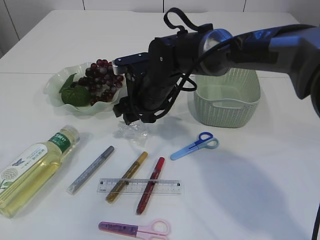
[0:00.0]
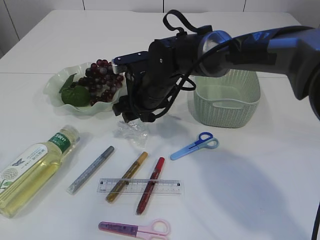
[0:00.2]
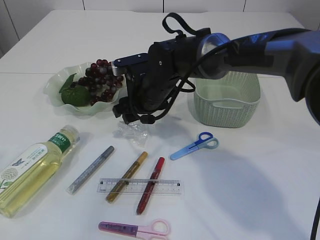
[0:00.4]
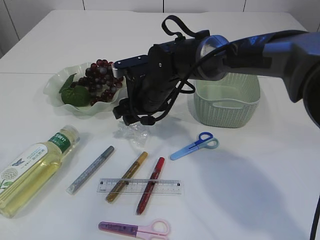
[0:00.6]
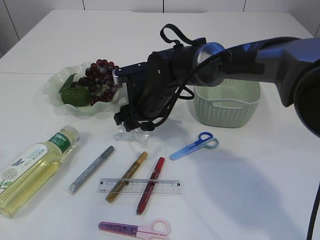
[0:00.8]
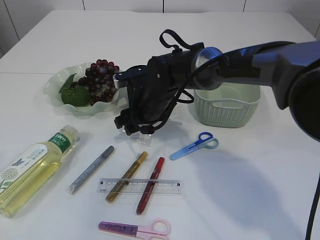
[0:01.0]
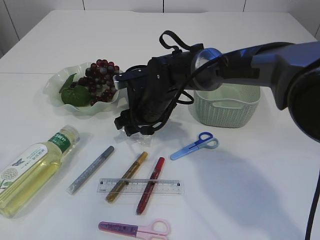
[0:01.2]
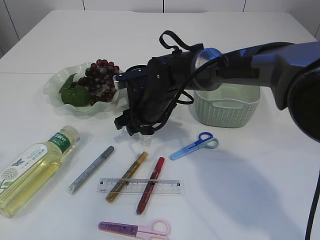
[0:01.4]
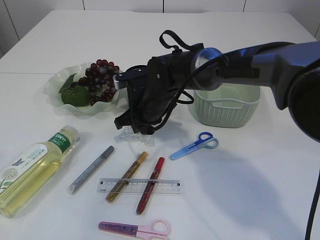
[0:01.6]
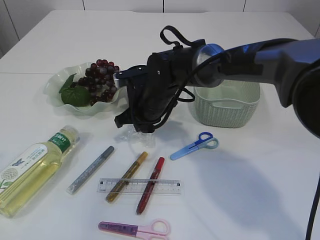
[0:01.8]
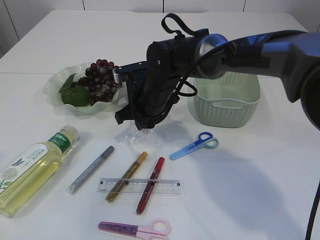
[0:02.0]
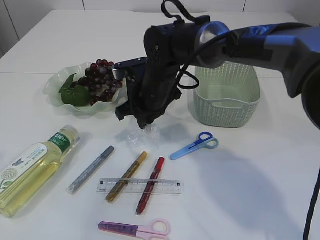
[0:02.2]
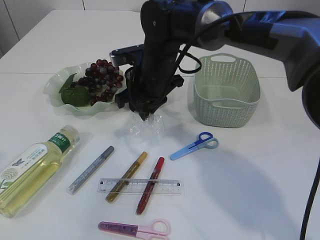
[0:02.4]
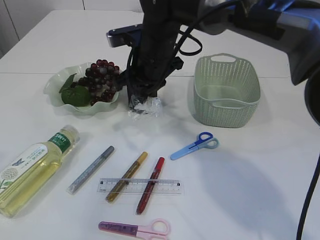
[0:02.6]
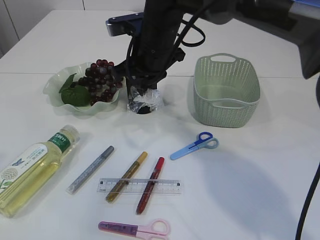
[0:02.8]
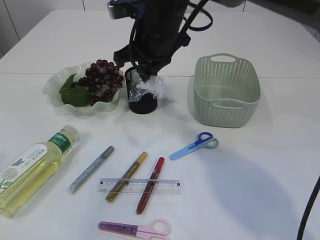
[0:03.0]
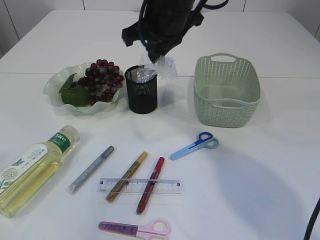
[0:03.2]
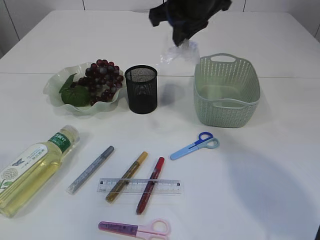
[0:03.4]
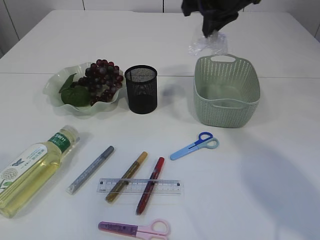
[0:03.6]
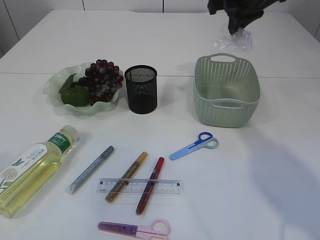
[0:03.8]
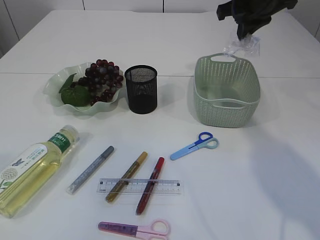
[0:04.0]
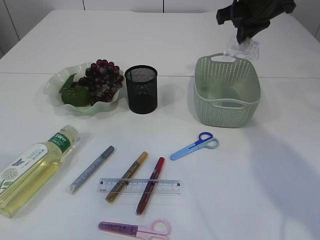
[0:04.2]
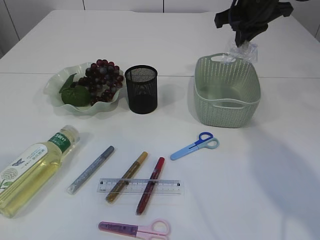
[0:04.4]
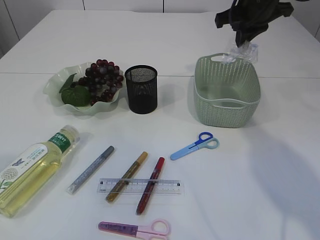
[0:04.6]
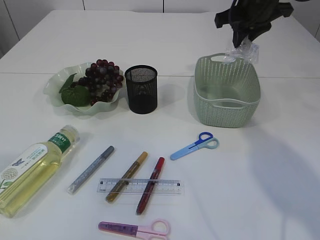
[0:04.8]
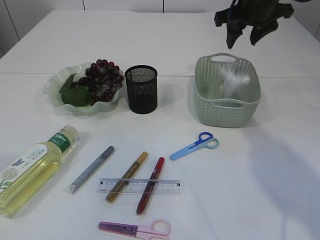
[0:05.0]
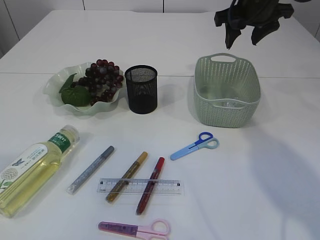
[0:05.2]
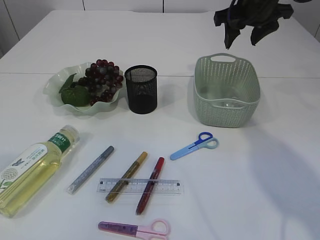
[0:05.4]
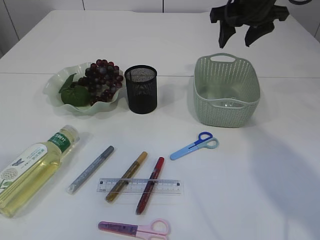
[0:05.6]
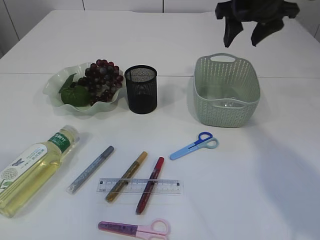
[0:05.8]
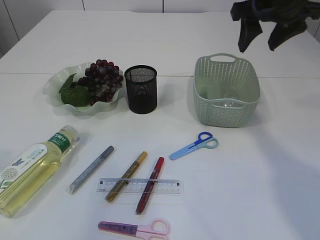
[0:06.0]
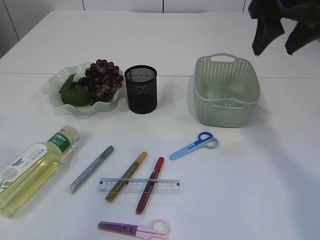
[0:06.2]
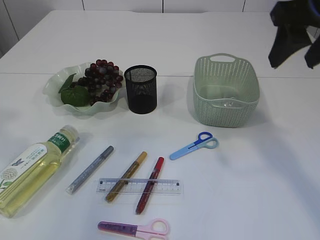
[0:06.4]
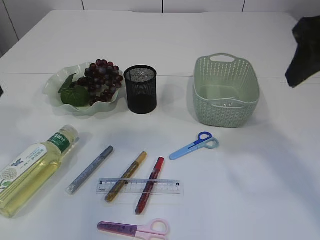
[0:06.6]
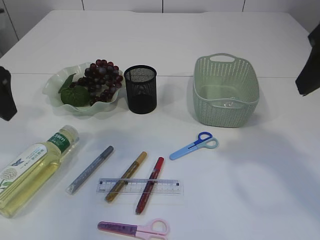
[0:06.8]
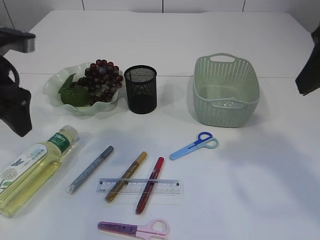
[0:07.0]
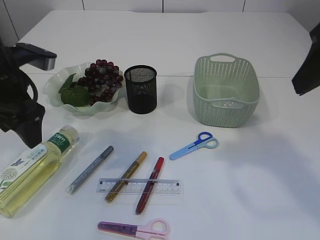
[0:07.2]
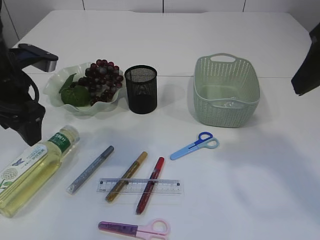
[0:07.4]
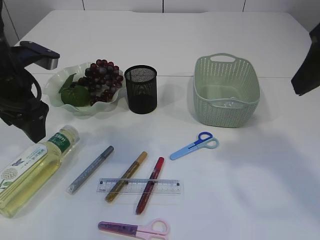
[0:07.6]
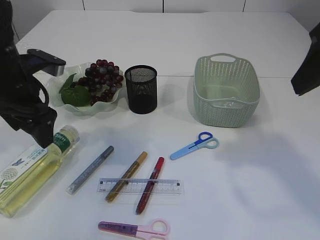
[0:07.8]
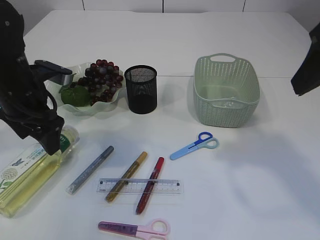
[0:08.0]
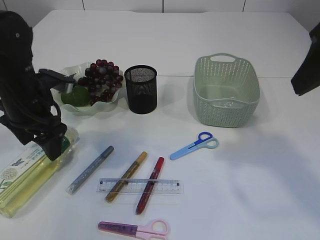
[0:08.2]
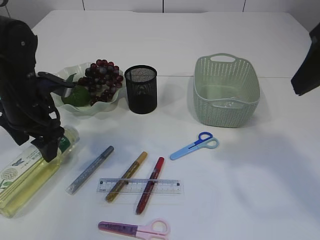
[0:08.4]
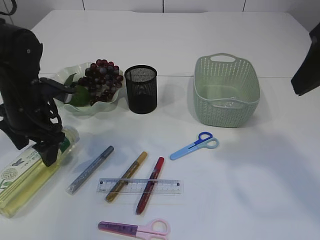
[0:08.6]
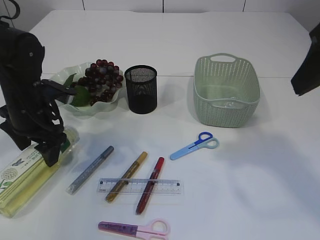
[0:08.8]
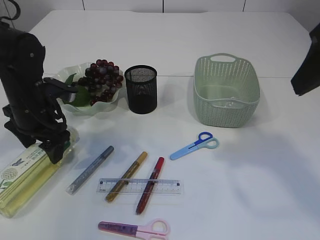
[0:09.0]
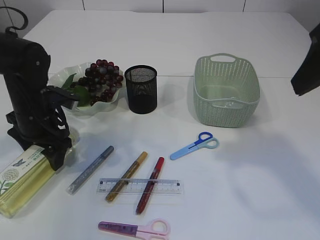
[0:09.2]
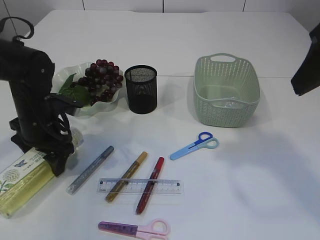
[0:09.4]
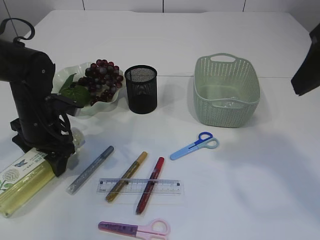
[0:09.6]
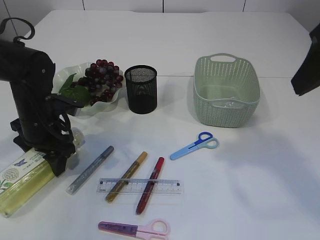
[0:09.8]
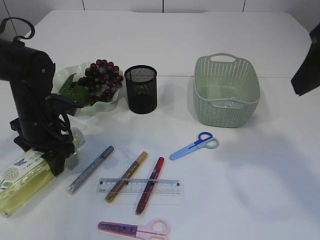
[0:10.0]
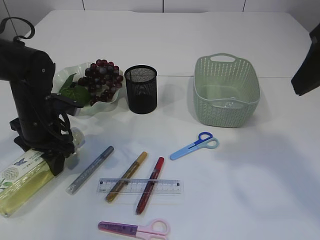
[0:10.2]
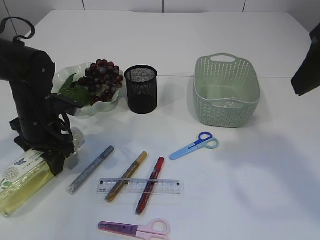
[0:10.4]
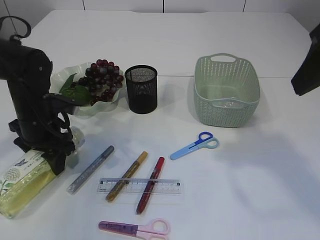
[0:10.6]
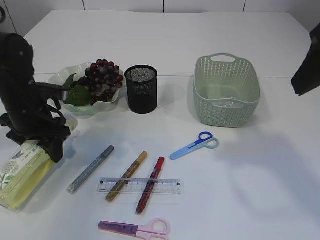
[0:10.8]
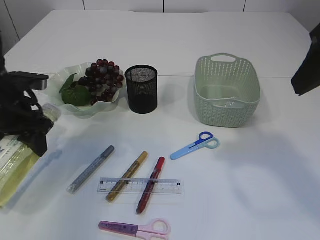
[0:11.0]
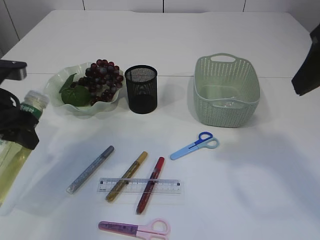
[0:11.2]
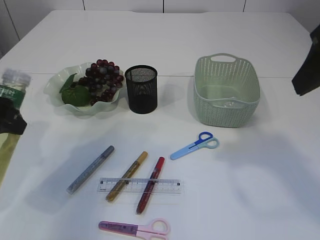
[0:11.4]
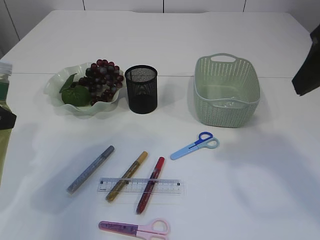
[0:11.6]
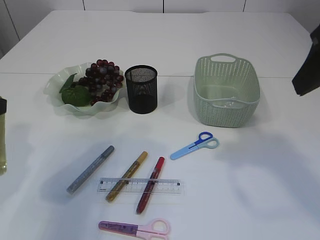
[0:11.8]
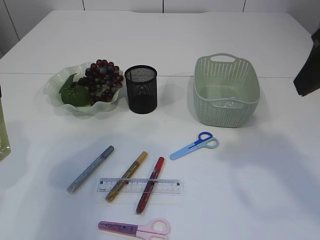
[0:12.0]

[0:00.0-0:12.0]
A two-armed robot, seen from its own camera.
Step, 0:00.0 to 0:02.4: Pick up the plastic.
Step, 0:02.6 to 0:05.6: Place the plastic in the basket.
Step, 0:05.8 to 0:11.0: Pick up the bottle with the left arm.
0:00.0 to 0:01.6: The right gripper closes.
0:01.6 to 0:03.0: The right gripper shifts some 15 cm upward.
0:03.0 to 0:04.4: The right gripper heads to the right, covering some 20 cm.
0:04.4 to 0:06.0: The right gripper is displaced backward by approximately 5 cm, and opens up.
0:06.0 to 0:07.6: The right gripper is displaced backward by roughly 20 cm, while the left gripper shifts about 25 cm downward and forward, and opens.
0:07.6 to 0:09.0: The left gripper goes about 10 cm downward.
0:09.0 to 0:10.4: The grippers make only small movements.
0:10.4 to 0:12.0: The left gripper is displaced backward and upward by about 20 cm.

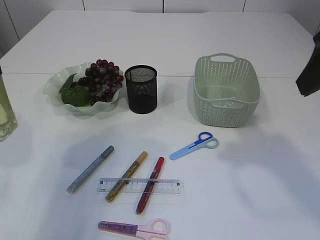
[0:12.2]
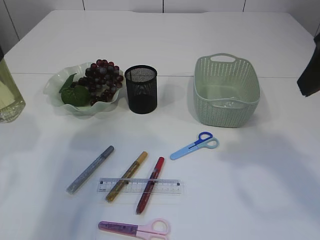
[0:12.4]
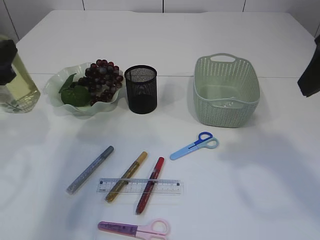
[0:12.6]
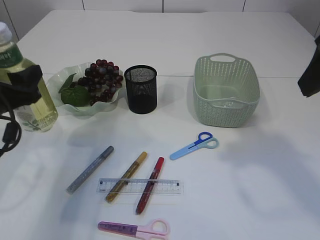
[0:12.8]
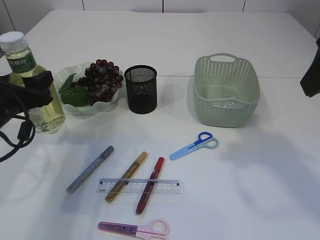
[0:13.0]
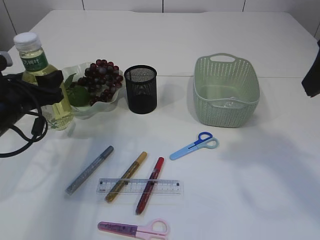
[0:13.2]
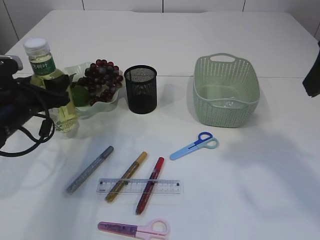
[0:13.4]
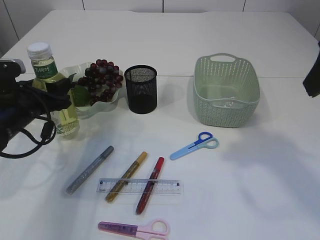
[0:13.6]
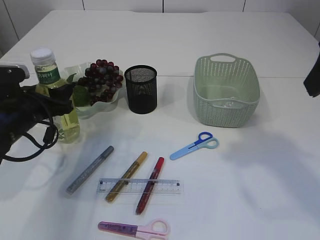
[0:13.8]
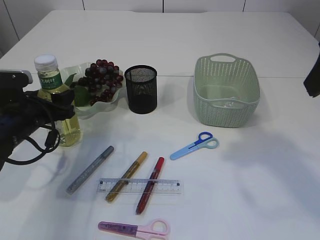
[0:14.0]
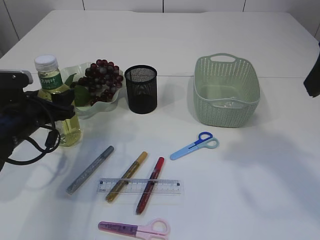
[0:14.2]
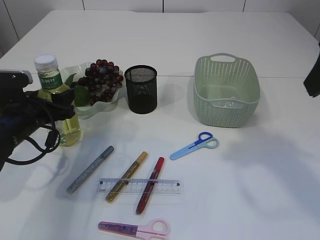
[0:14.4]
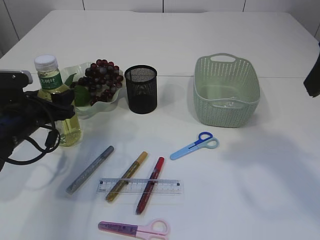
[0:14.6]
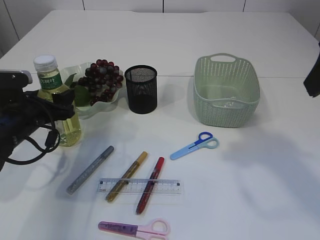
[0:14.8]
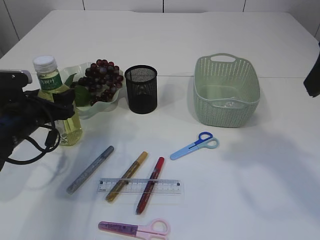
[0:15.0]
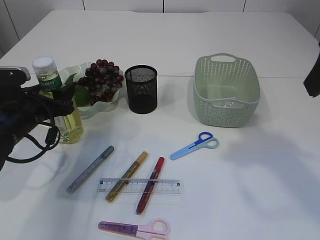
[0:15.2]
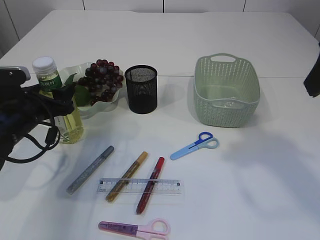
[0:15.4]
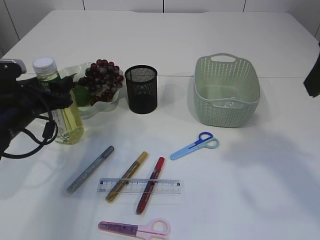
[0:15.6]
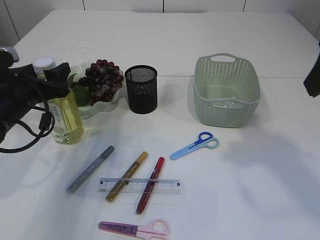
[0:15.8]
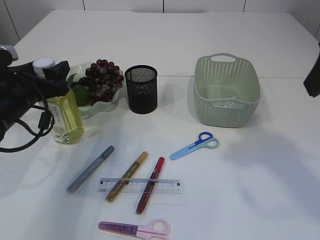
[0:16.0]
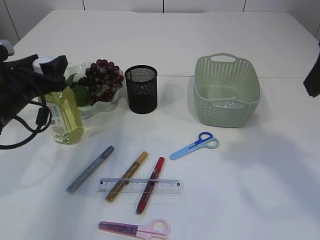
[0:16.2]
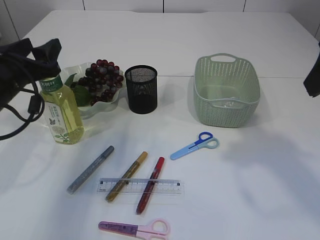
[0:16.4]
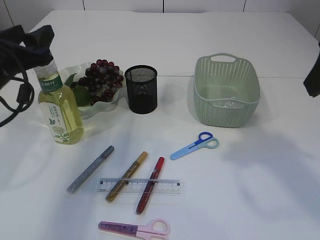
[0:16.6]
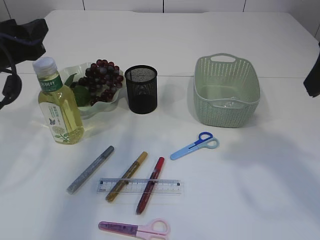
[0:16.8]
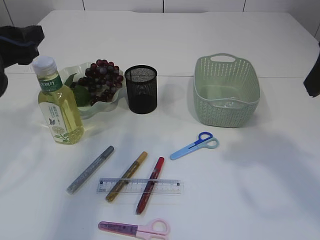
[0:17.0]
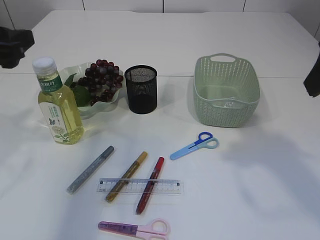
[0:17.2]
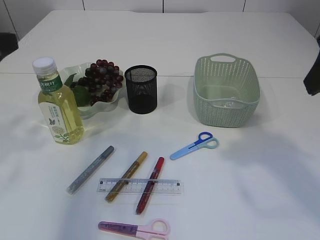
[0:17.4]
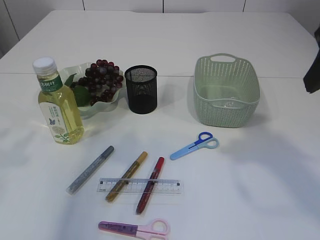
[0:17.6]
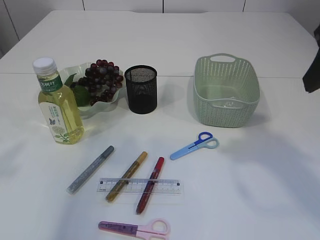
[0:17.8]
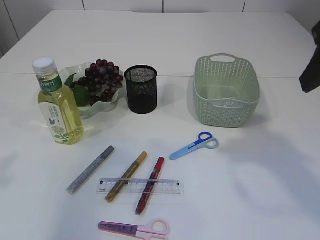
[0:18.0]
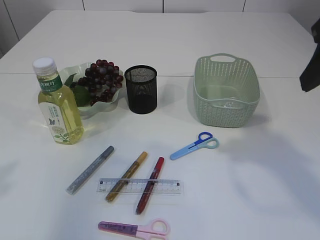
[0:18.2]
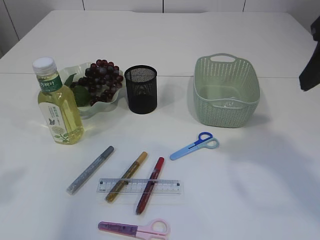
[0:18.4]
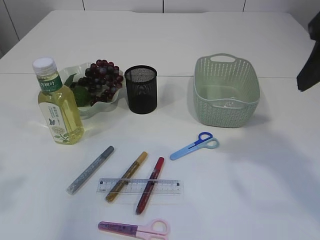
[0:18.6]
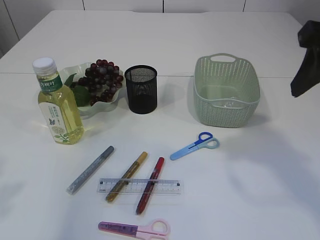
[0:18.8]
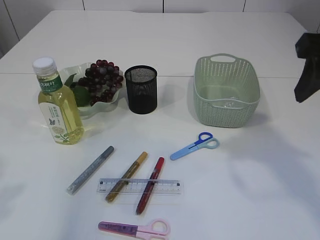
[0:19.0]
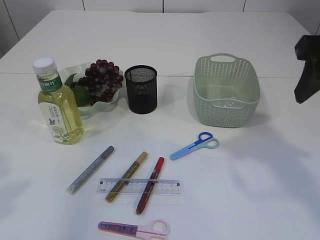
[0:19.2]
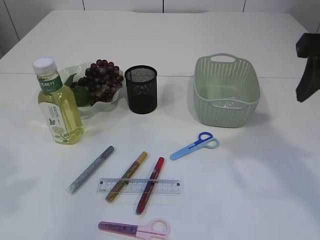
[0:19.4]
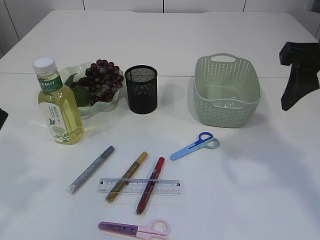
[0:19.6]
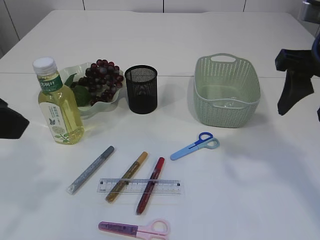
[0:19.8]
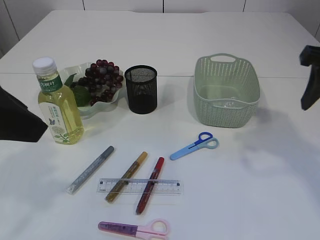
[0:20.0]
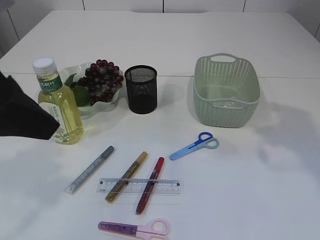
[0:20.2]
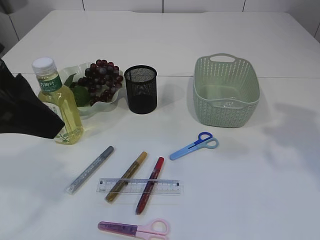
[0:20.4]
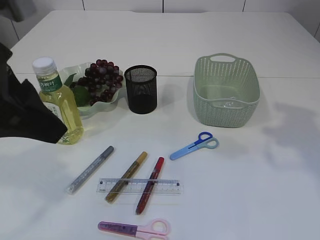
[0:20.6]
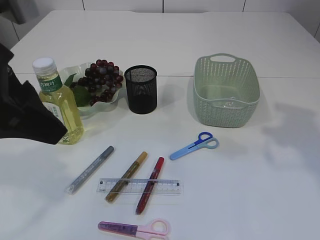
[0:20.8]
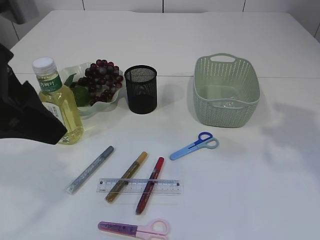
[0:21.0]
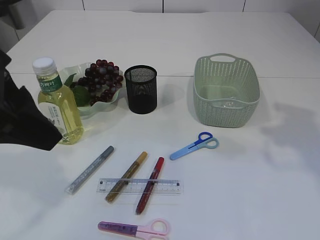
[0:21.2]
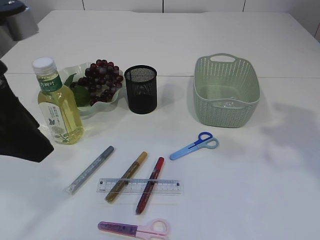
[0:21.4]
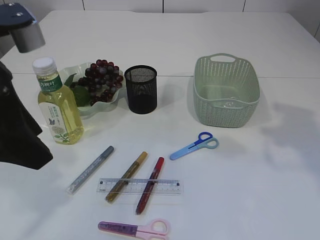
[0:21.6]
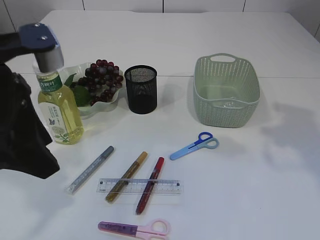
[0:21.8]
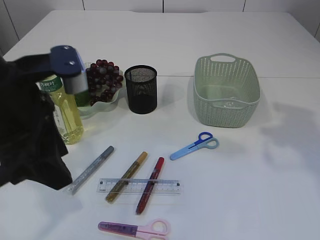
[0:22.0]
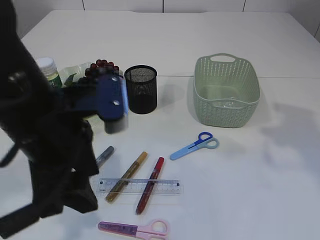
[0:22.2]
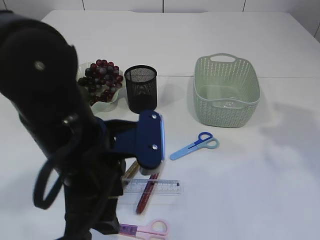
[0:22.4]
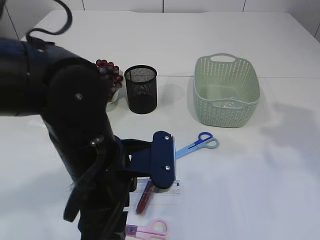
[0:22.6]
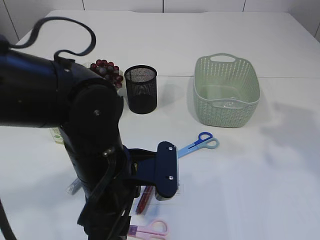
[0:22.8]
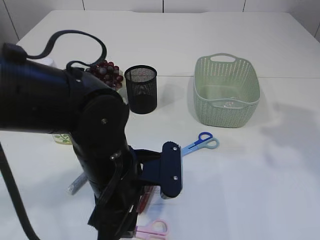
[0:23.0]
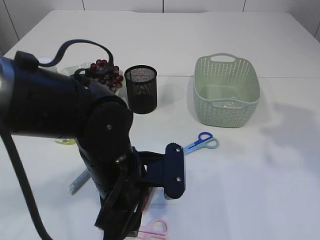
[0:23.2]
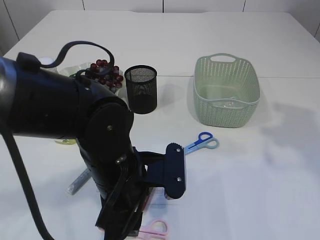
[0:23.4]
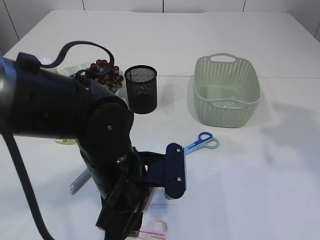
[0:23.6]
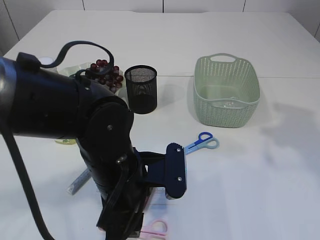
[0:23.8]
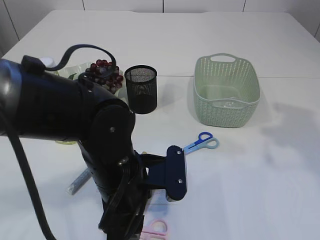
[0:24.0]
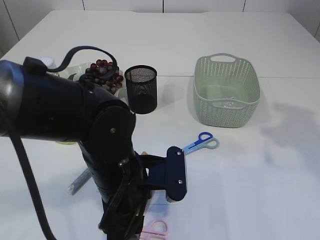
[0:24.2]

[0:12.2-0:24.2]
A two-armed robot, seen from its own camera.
Step, 0:12.2 to 0:16.6: Place the bottle.
0:12.2 to 0:13.8: The left gripper heads downward and forward, covering approximately 20 cm.
0:13.8 to 0:15.2: The two grippers keep their place.
0:15.2 to 0:16.6: The left gripper shifts approximately 10 cm upward.
0:16.6 to 0:18.2: The left gripper goes roughly 20 cm backward and upward.
0:18.2 to 0:19.8: The left gripper is displaced to the right by roughly 5 cm. The right gripper ends up about 5 cm from where it was.
0:19.8 to 0:21.2: The right gripper is displaced to the right by roughly 10 cm.
0:21.2 to 0:22.6: The left gripper is displaced downward and to the right by roughly 15 cm.
0:22.6 to 0:24.2: The left gripper goes about 5 cm downward.
